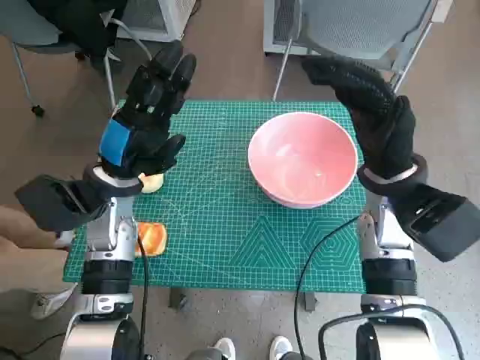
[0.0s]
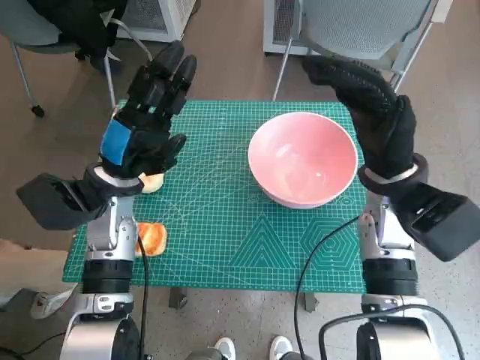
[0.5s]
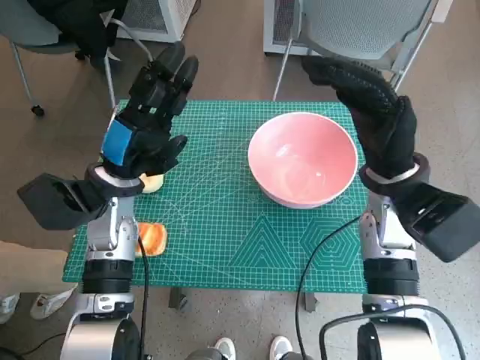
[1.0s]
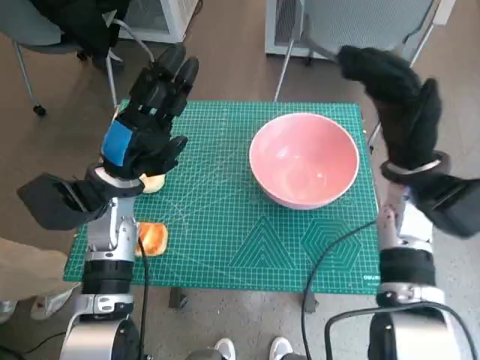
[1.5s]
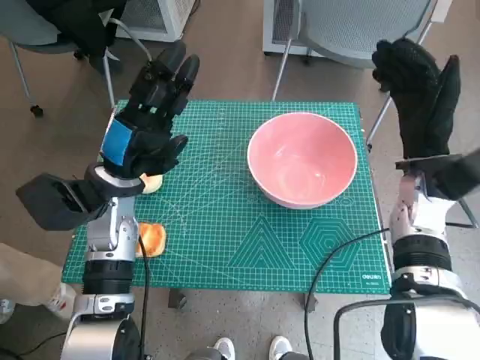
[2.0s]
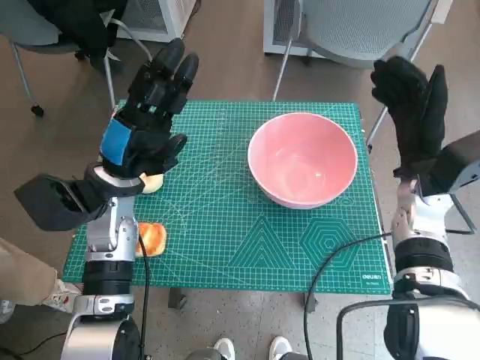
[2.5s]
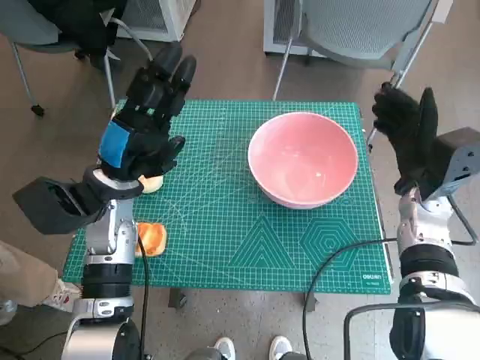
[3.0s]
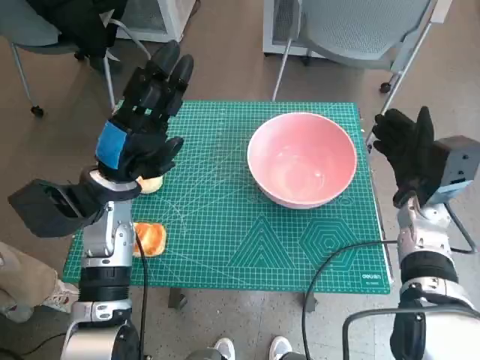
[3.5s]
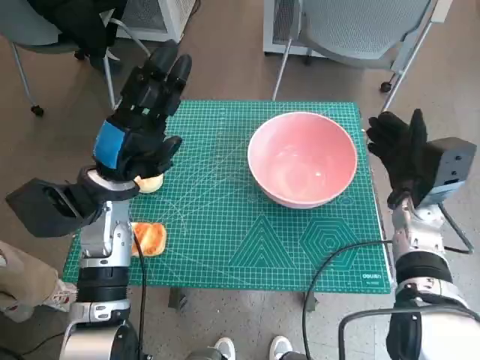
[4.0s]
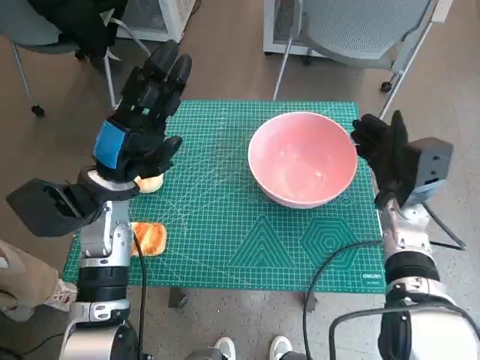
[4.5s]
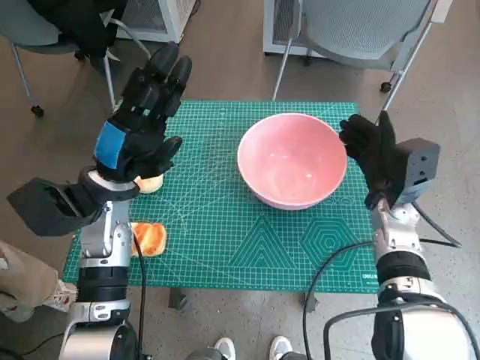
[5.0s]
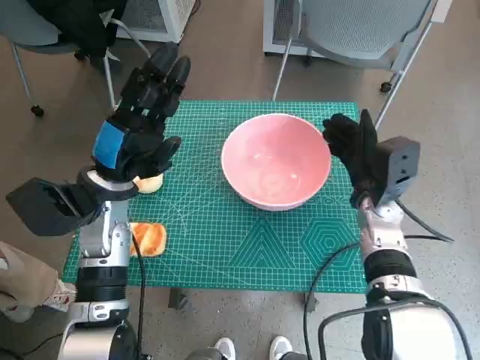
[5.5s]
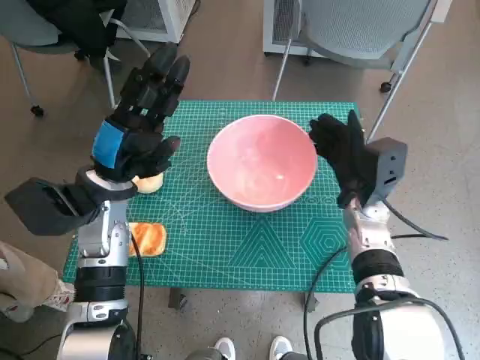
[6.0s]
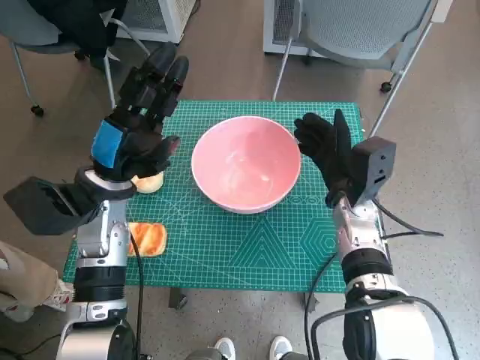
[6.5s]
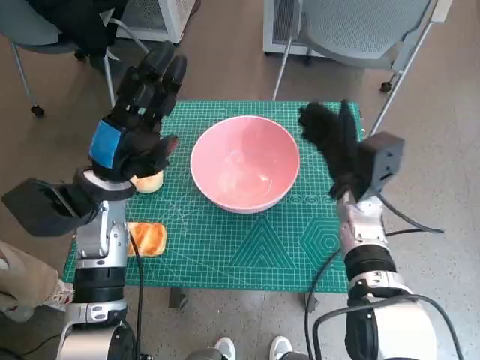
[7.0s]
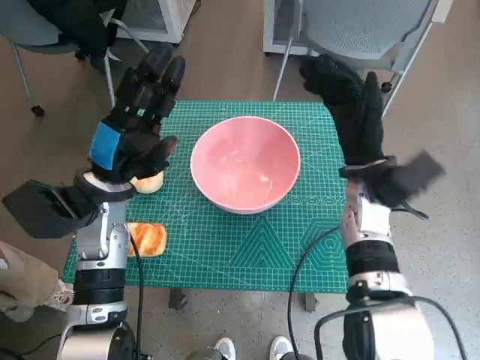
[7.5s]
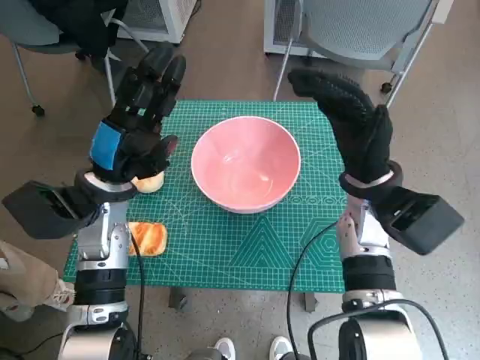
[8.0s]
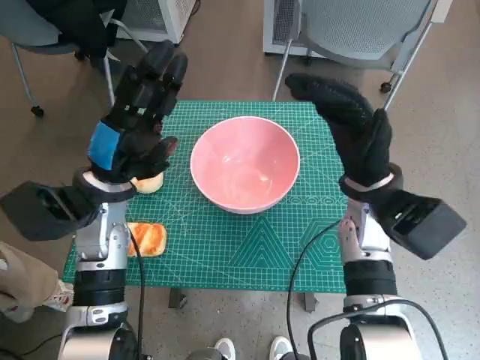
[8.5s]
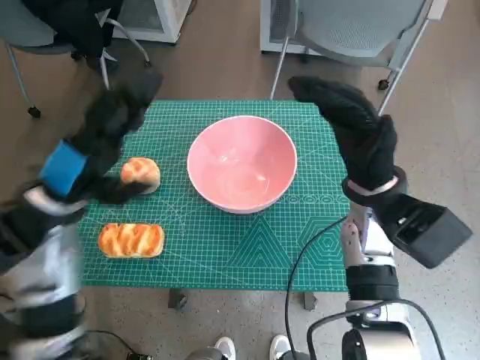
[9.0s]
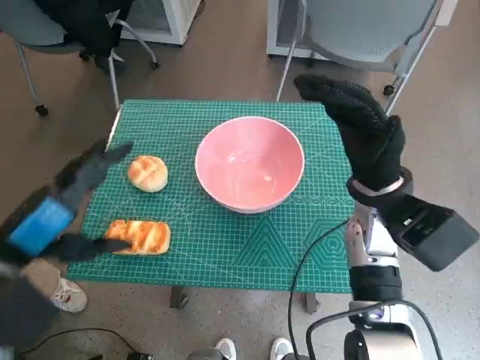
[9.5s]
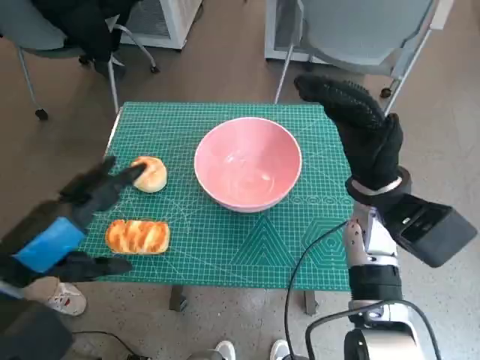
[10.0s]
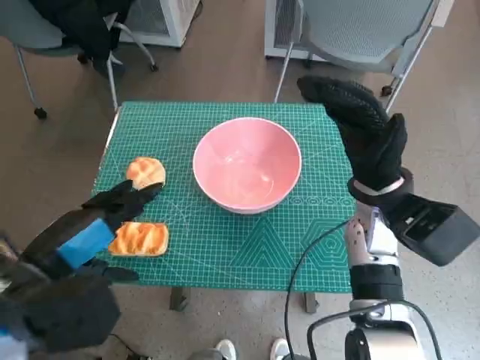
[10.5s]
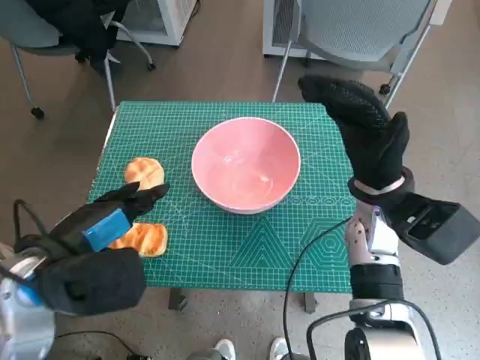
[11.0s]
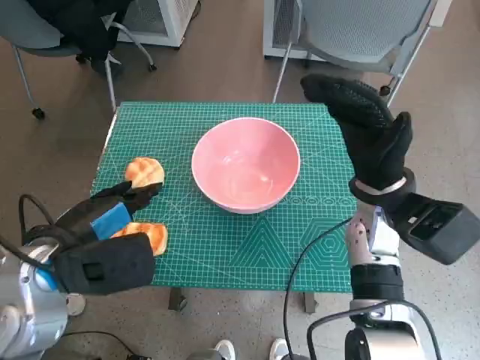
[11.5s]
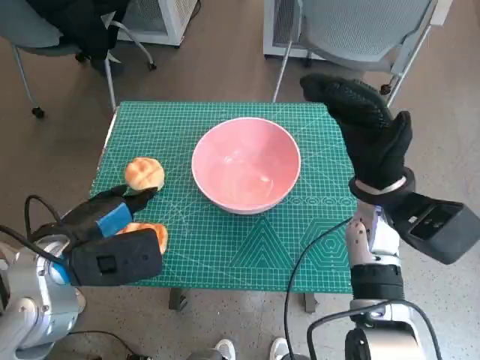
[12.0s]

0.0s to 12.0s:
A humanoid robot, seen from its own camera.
Step, 0.0s to 7.0s: Move the pink bowl to the center of table with right hand.
2.0s to 4.0s: The right hand moves downward, roughly 5 cm.
4.0s to 6.0s: The right hand goes roughly 5 cm to the left.
6.0s to 8.0s: The right hand heads upward, covering roughly 5 cm.
8.0s to 10.0s: The left hand heads backward and upward, covering some 15 cm.
10.0s to 12.0s: The left hand goes roughly 5 cm forward.

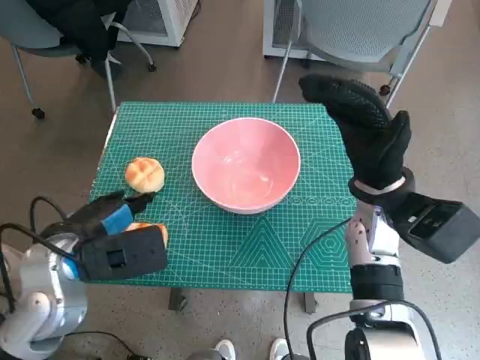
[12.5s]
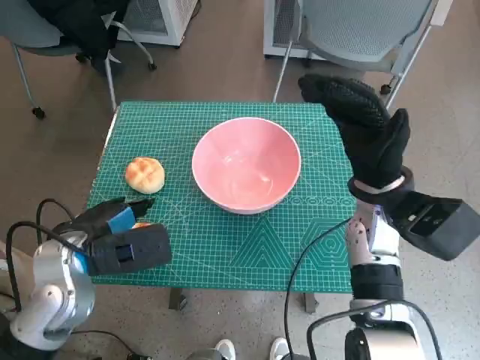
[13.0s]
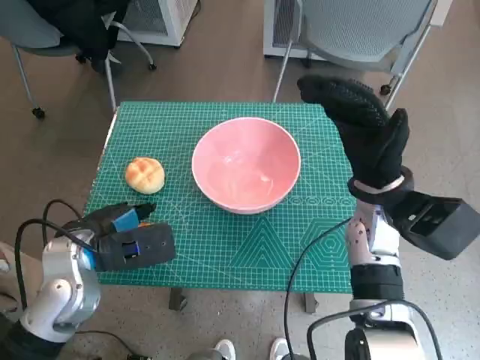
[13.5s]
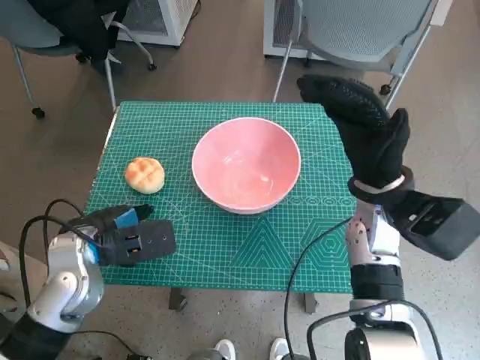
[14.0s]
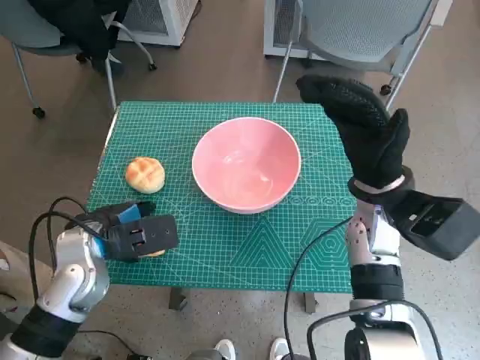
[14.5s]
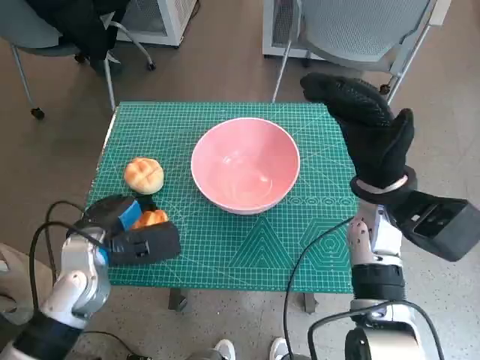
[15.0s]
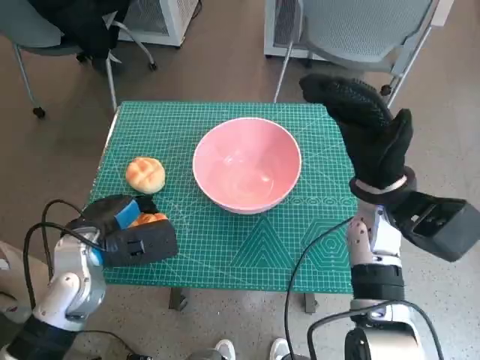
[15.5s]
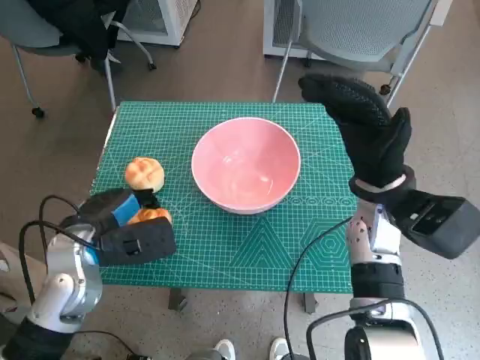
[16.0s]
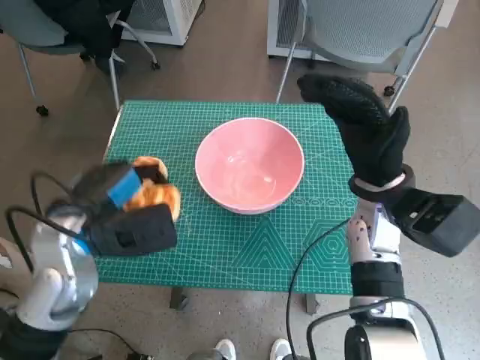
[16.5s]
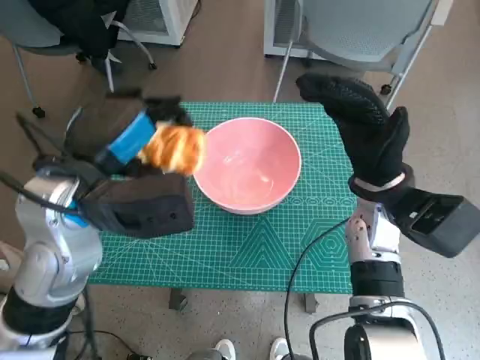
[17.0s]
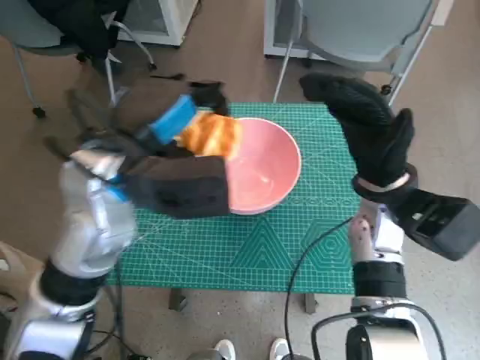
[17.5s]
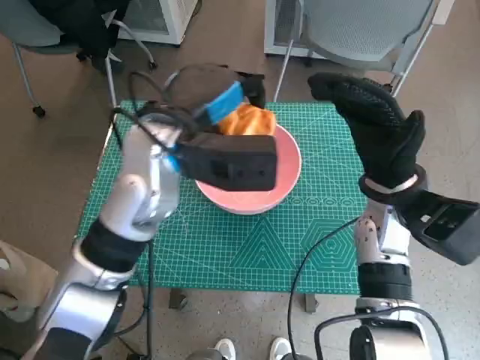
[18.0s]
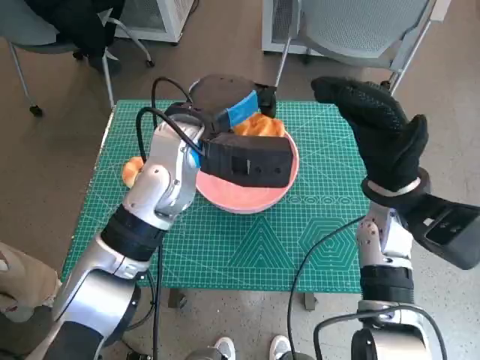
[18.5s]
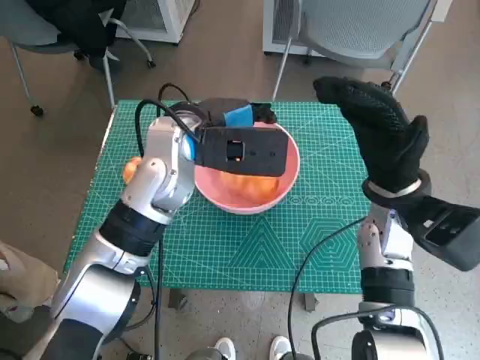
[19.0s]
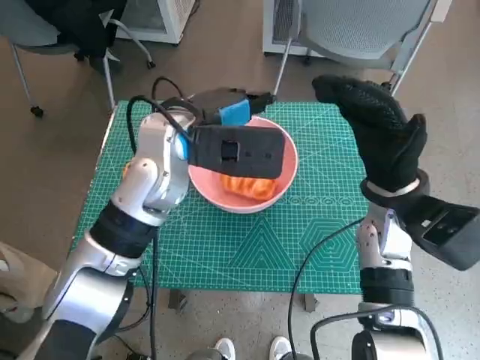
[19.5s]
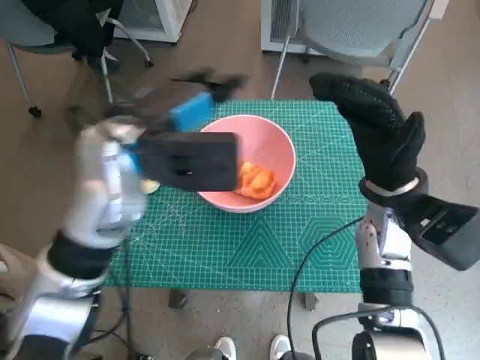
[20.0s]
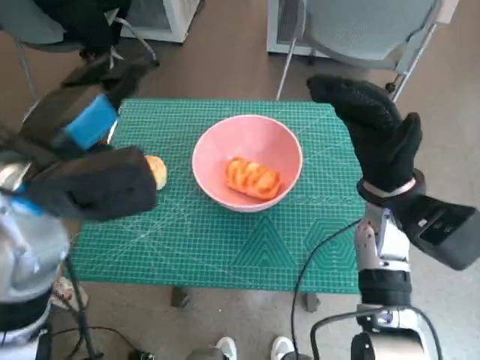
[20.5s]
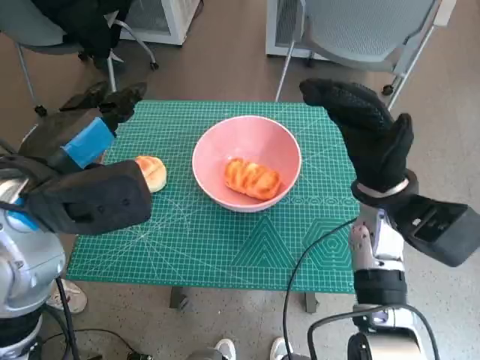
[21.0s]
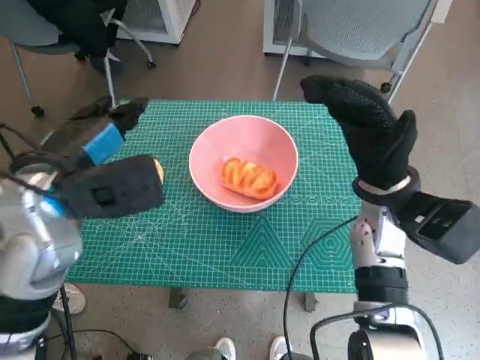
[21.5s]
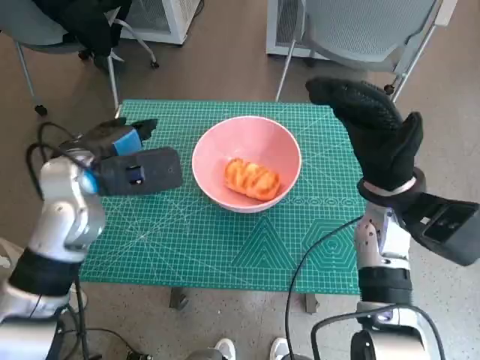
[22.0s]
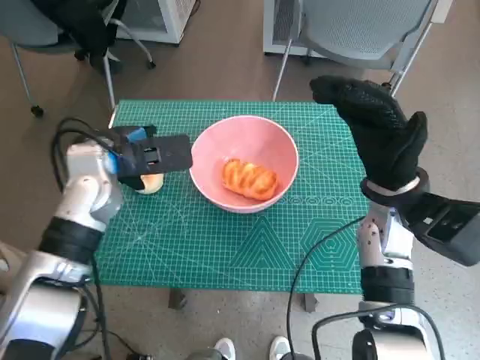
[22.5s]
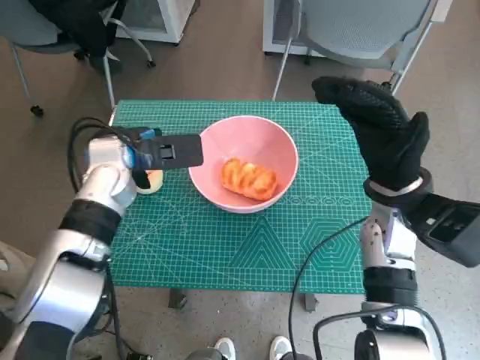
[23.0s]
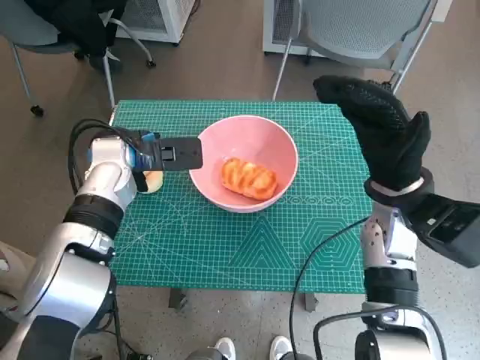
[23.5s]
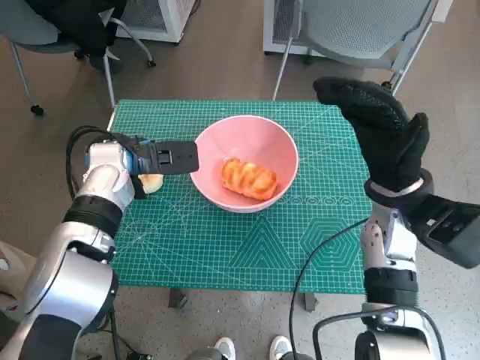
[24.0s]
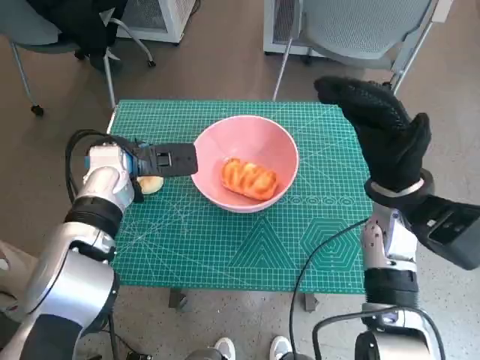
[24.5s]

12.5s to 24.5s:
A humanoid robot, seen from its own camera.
Step, 12.5s to 14.5s: Grasp the long bread with left hand.
Step, 15.0s to 19.0s: Place the long bread in pink bowl with left hand.
12.5s to 14.5s: The left hand shifts by about 5 cm.
14.5s to 16.5s: The left hand travels upward by approximately 5 cm.
16.5s to 18.5s: The left hand is displaced to the right, forward and upward by roughly 15 cm.
18.5s to 20.5s: The left hand shifts approximately 15 cm to the left and backward.
20.5s to 22.5s: The left hand shifts approximately 15 cm forward and downward.
22.5s to 24.5s: The hands stay close to where they were, moving slightly.

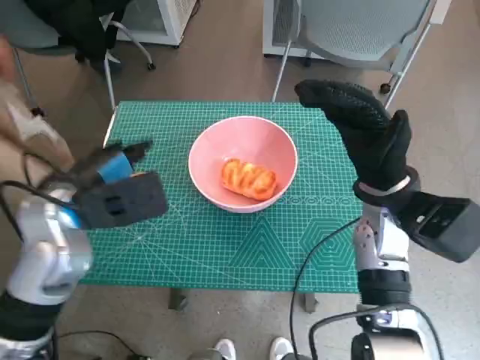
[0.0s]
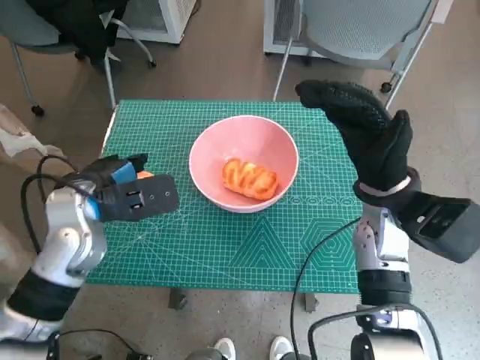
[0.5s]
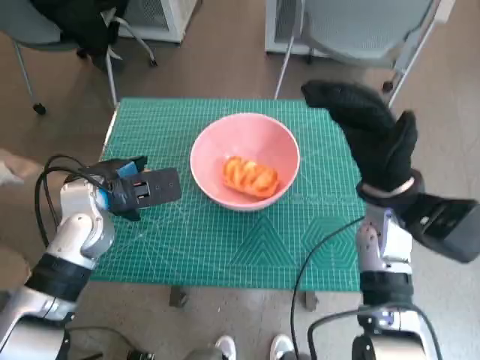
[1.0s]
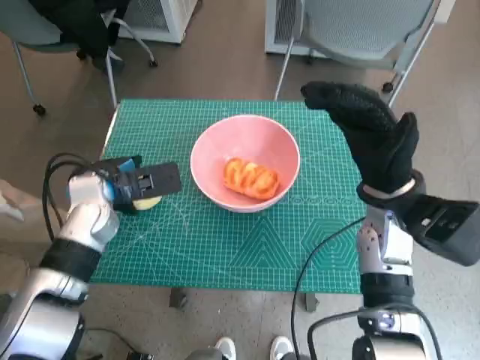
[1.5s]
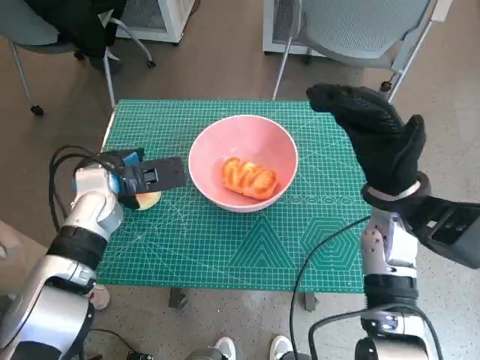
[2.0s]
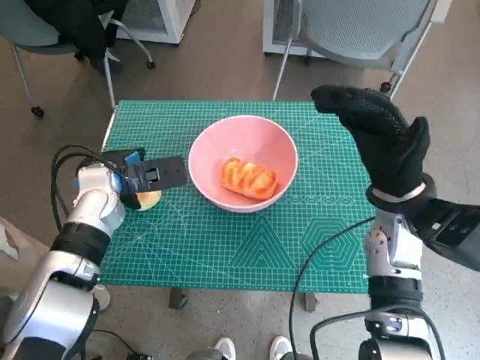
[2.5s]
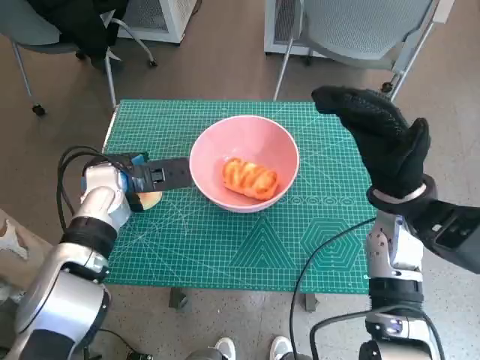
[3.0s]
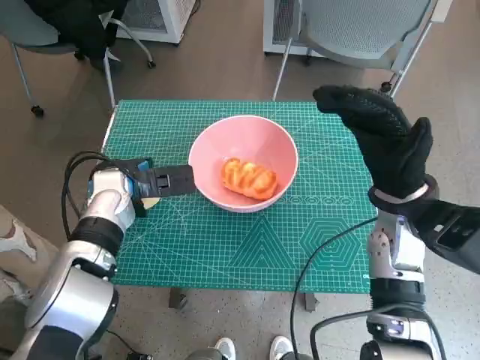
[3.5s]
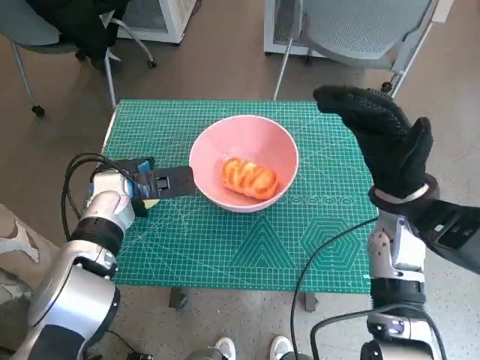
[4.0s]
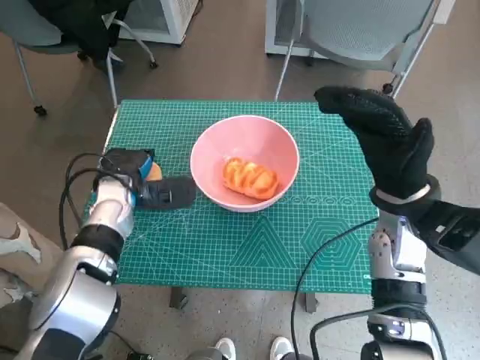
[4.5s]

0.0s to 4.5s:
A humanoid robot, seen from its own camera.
0.0s to 2.0s: The left hand heads forward and downward, covering approximately 10 cm.
